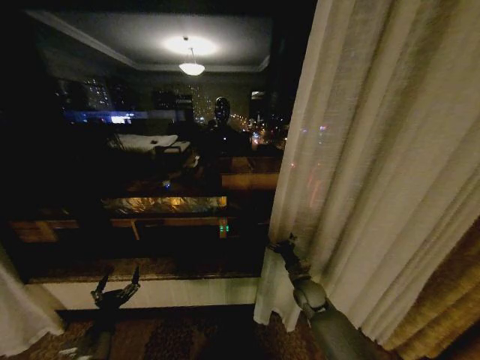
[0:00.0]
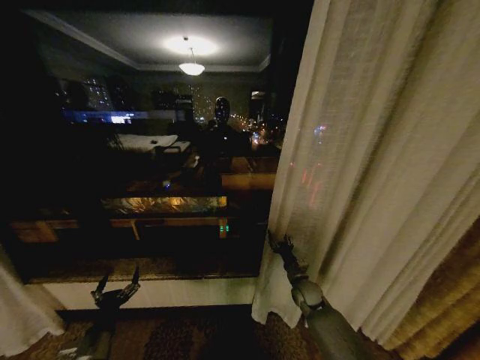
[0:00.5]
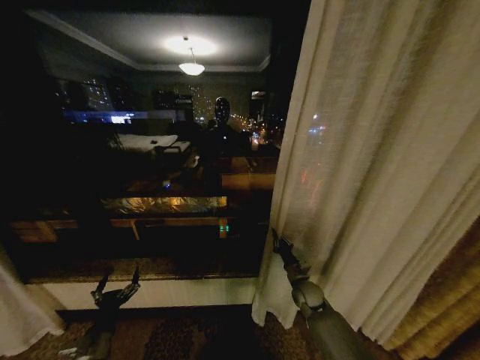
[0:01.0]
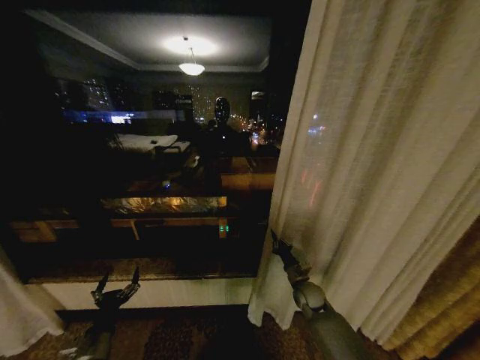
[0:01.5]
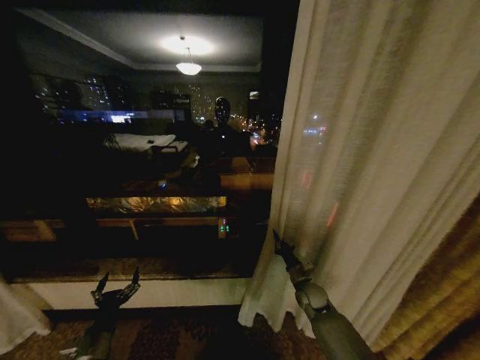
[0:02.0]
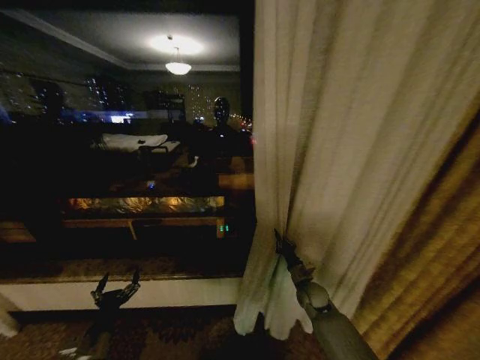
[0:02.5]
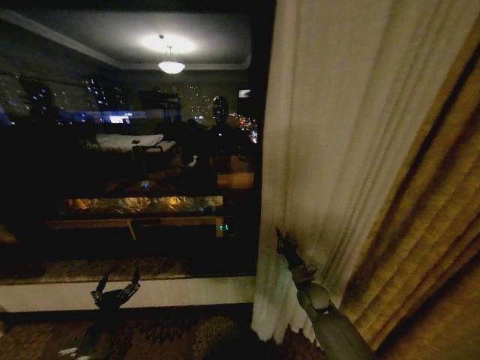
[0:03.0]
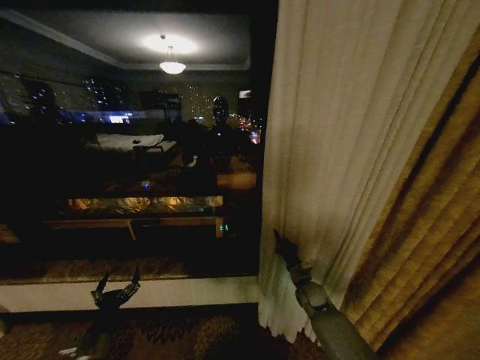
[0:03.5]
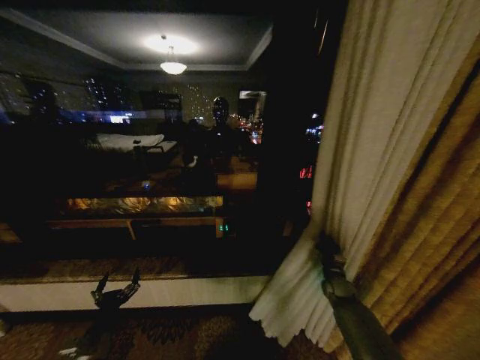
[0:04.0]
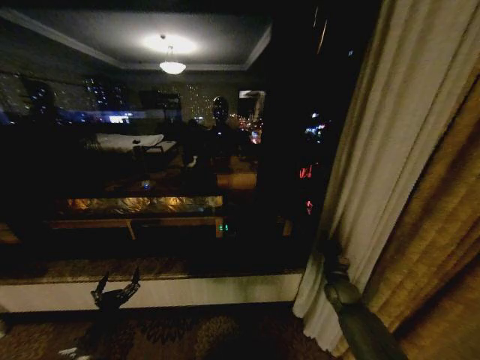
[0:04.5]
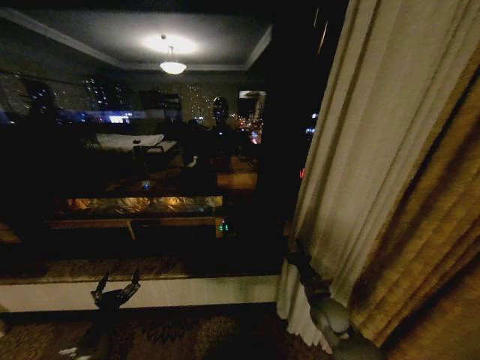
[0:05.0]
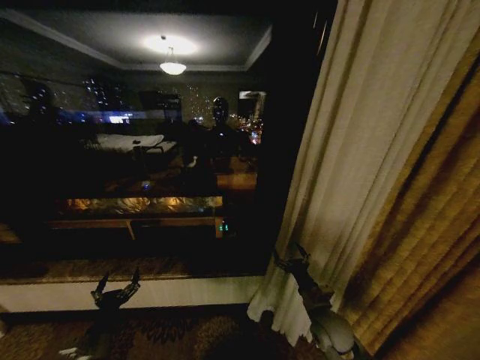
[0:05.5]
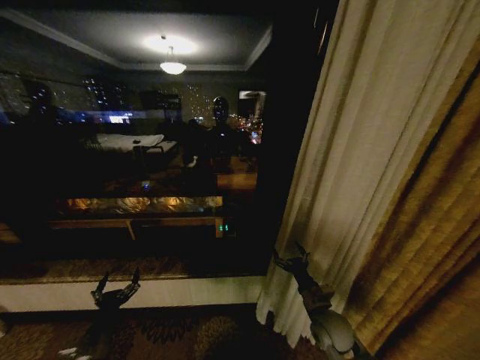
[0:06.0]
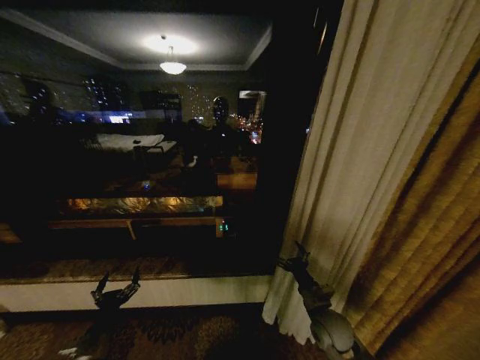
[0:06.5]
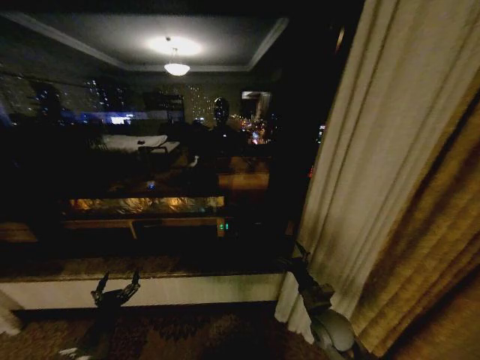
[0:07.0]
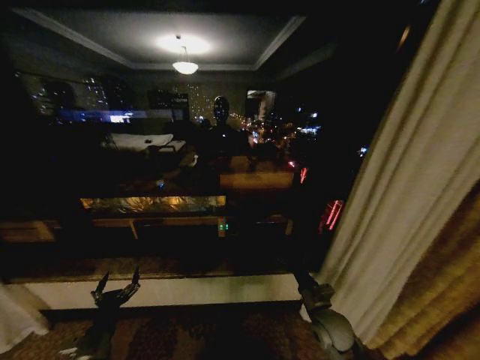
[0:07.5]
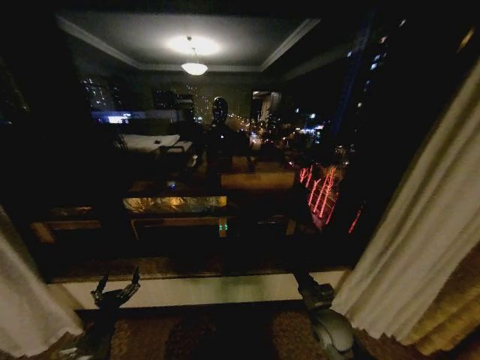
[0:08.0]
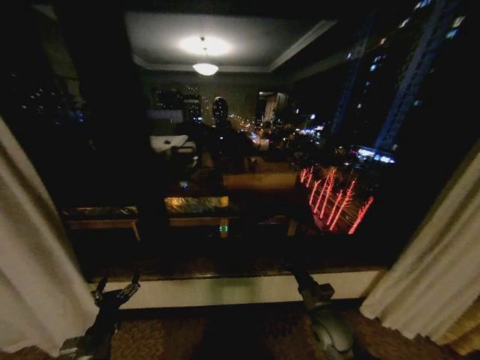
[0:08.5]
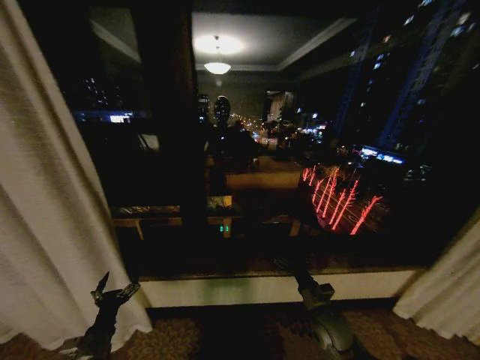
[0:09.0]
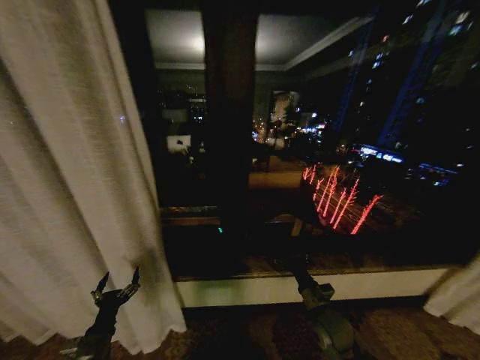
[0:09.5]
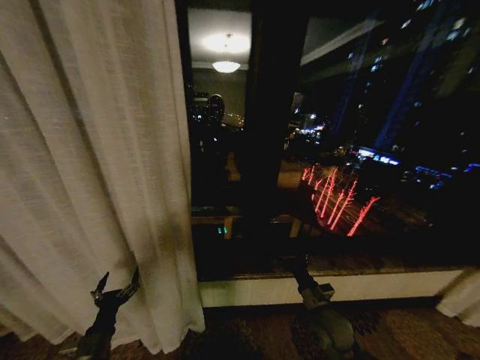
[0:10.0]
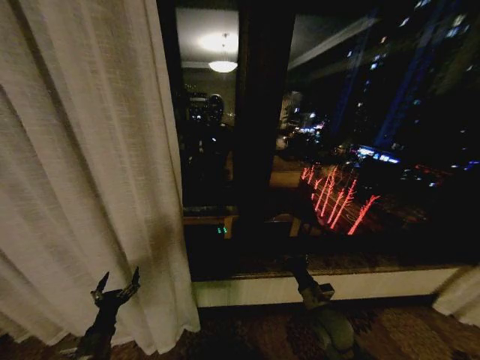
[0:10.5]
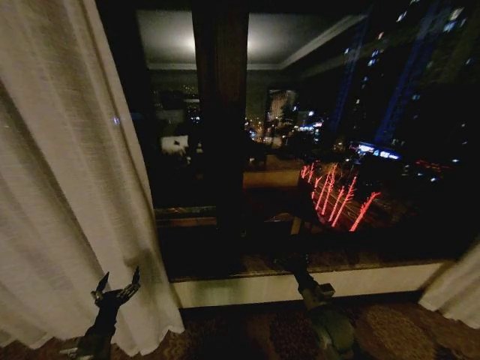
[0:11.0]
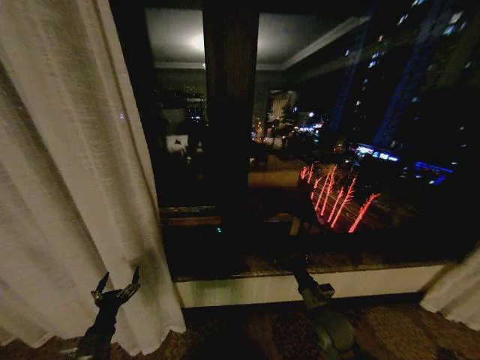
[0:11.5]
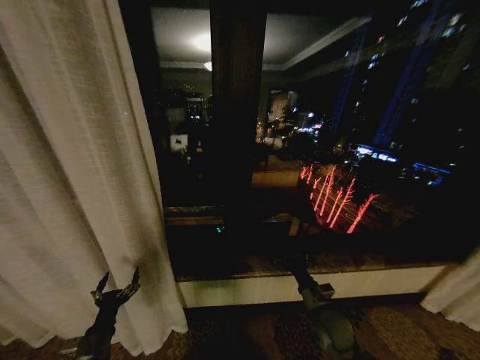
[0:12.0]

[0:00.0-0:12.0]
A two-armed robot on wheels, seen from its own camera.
Task of the whole recording: Open the curtains by pulling them apart, changing their state from closed to fully open.
0:00.0 to 0:02.0: The right gripper closes up.
0:02.0 to 0:04.0: The right gripper travels to the right by some 10 cm.
0:04.0 to 0:06.0: The right gripper shifts about 20 cm backward, to the left and upward, and opens its fingers.

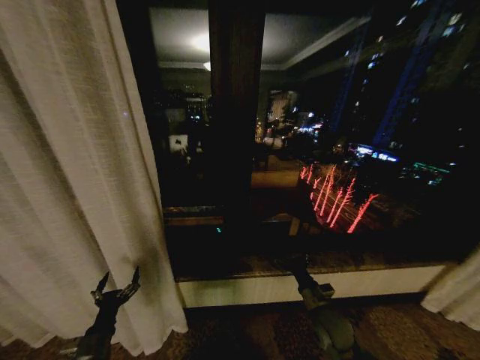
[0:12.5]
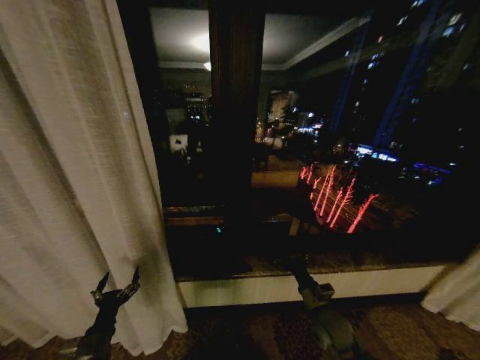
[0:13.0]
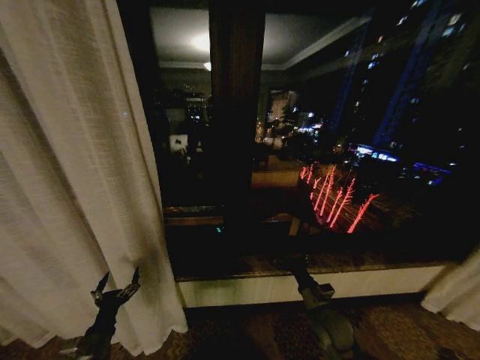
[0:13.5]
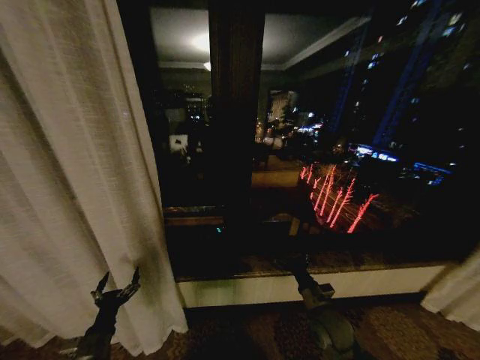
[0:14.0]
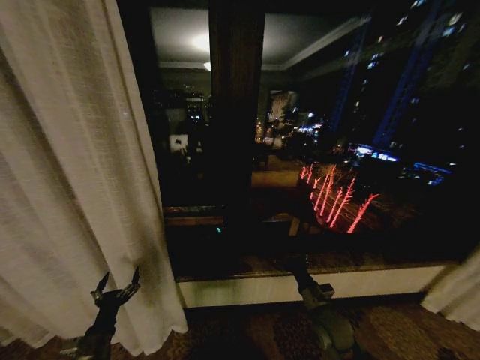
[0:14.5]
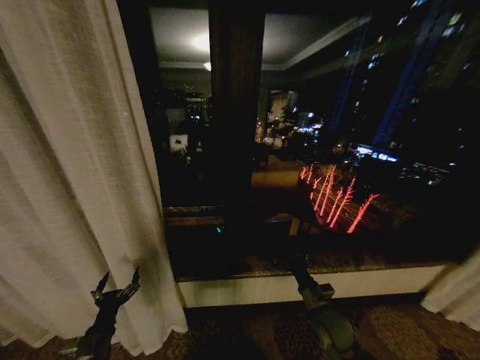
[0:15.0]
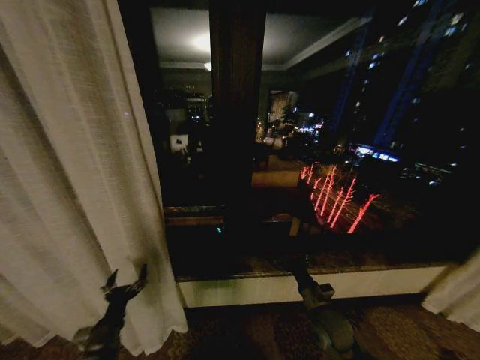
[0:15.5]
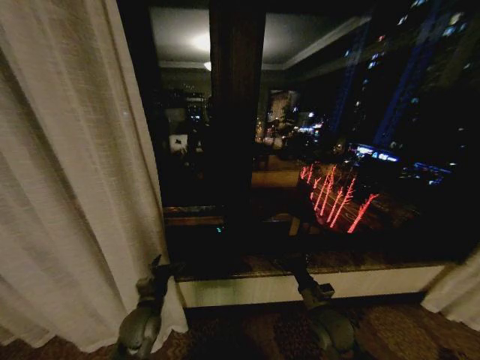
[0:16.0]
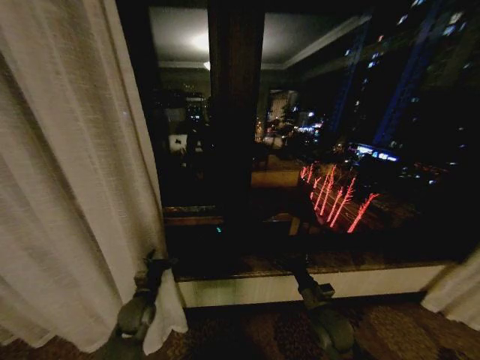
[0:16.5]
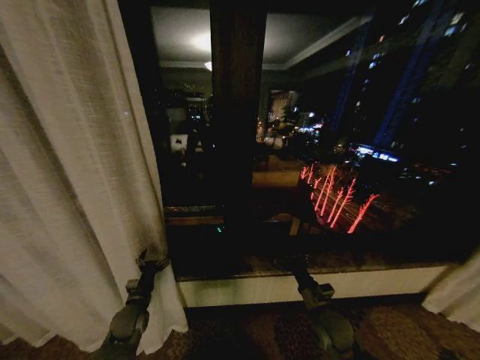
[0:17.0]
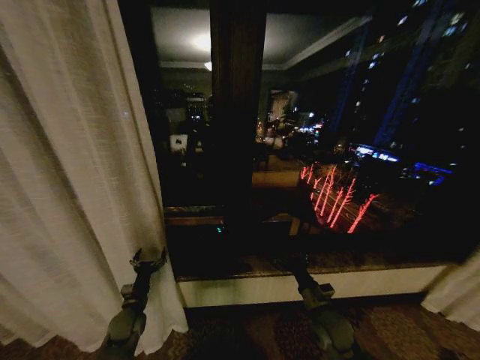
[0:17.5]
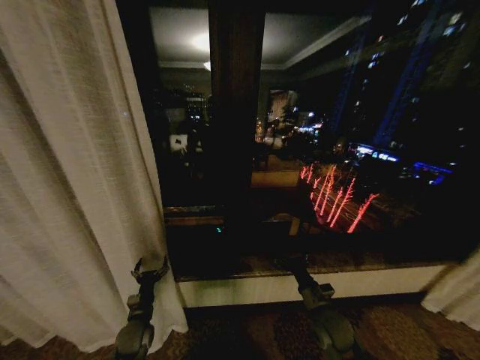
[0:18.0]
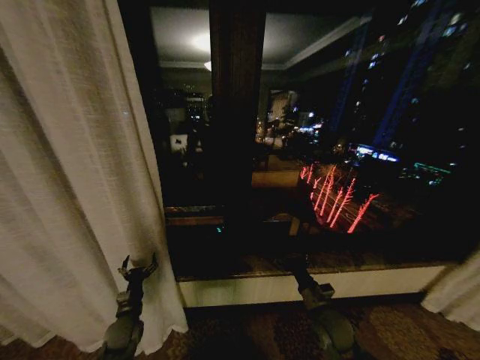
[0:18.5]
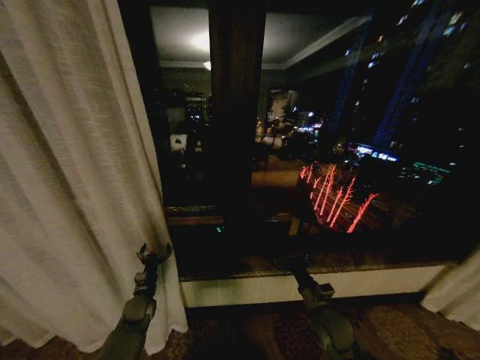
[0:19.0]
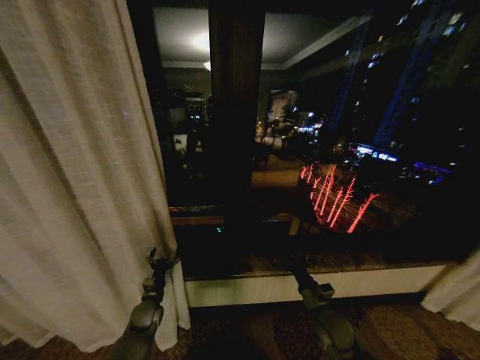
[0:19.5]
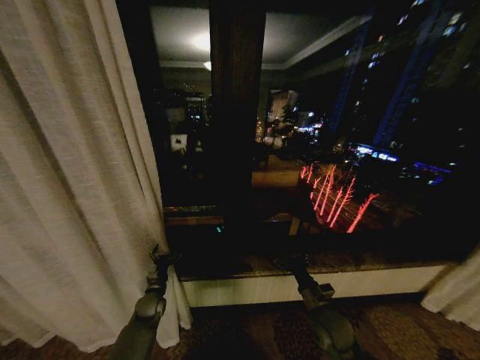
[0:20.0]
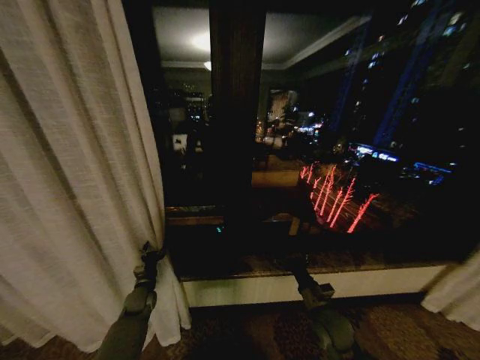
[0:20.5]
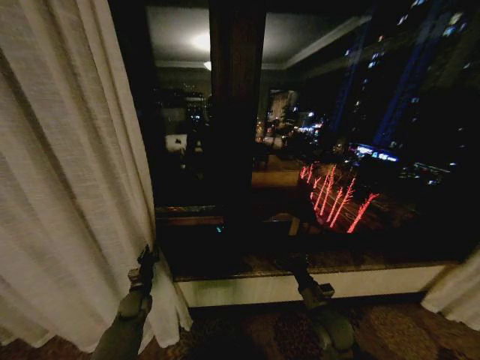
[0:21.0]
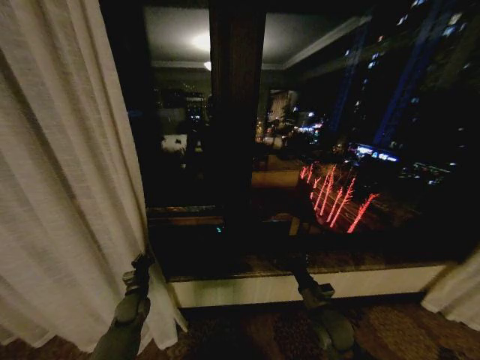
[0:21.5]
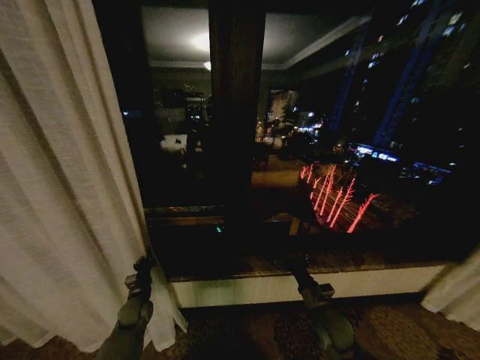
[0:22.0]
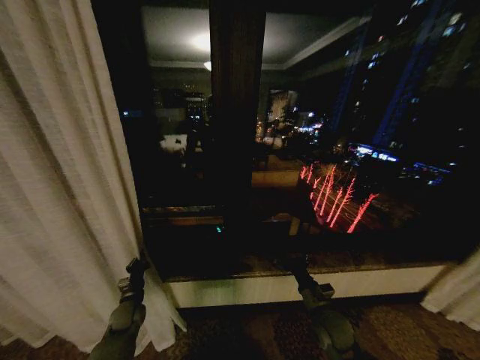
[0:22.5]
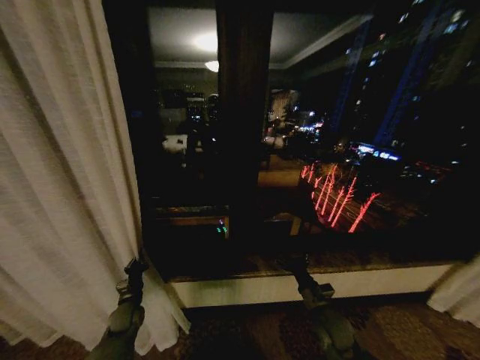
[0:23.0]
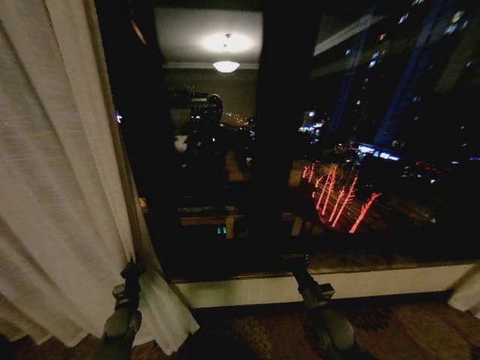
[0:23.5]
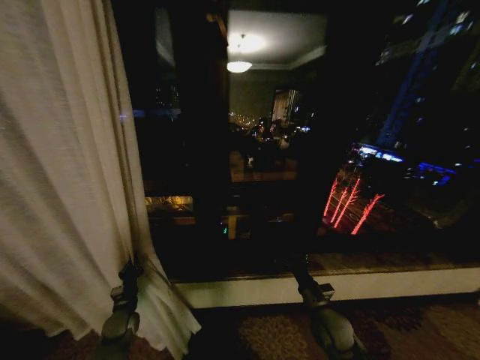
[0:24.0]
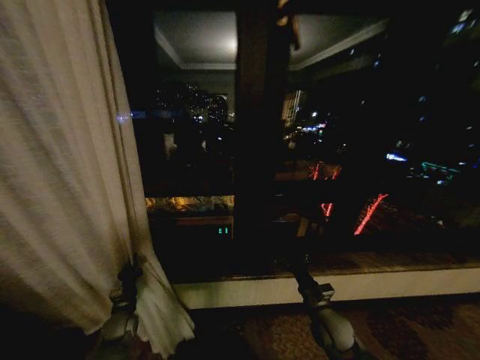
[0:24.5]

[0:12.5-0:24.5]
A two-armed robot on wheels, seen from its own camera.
Task of the whole recording: Open the curtains by pulling them apart, changing their state from closed to fully open.
0:12.5 to 0:14.5: Neither gripper changes place.
0:14.5 to 0:16.5: The left gripper is displaced forward by about 15 cm.
0:16.5 to 0:18.5: The left gripper ends up roughly 5 cm from where it was.
0:18.5 to 0:20.5: The left gripper moves forward, approximately 10 cm.
0:20.5 to 0:22.5: The left gripper changes place by roughly 5 cm, and closes up.

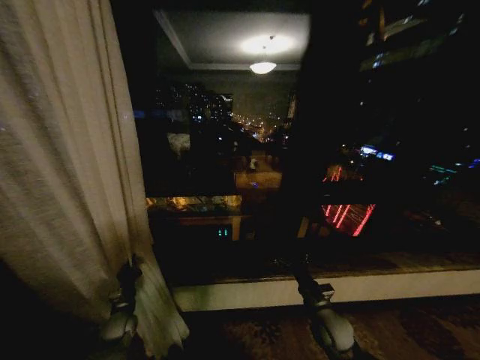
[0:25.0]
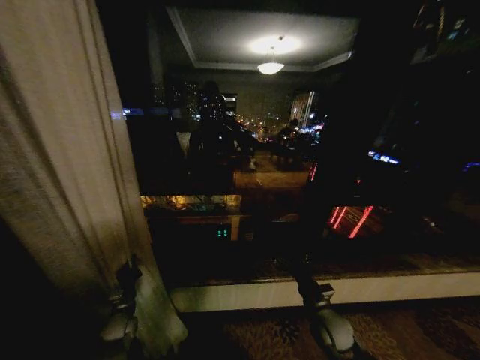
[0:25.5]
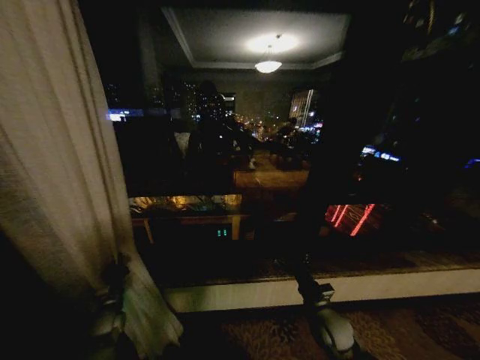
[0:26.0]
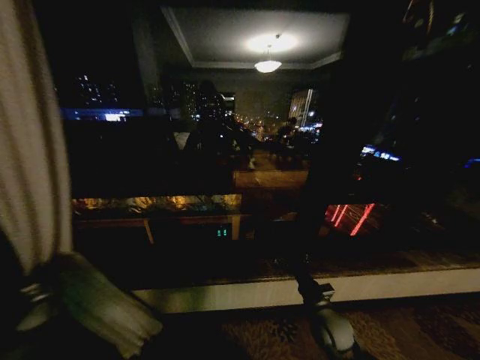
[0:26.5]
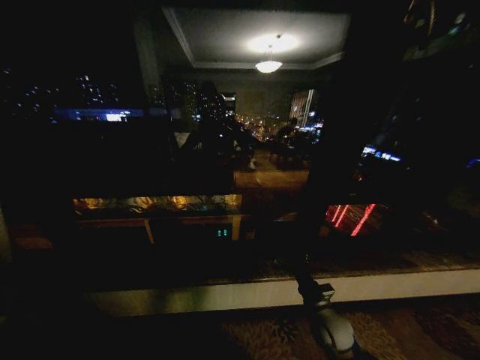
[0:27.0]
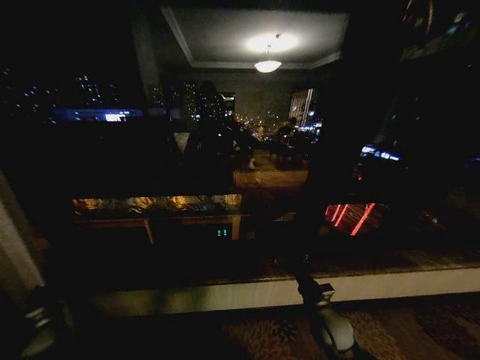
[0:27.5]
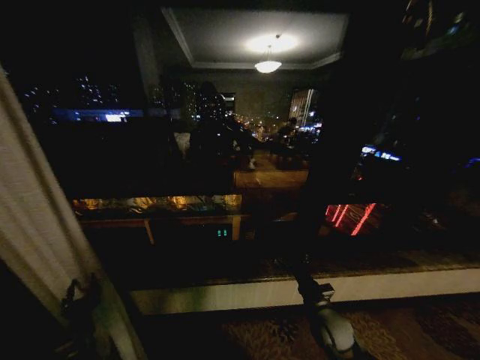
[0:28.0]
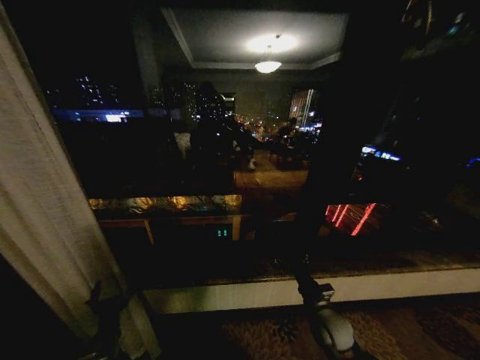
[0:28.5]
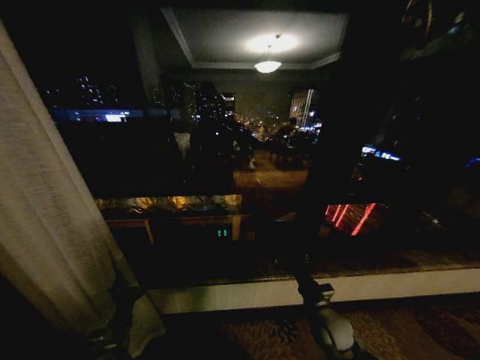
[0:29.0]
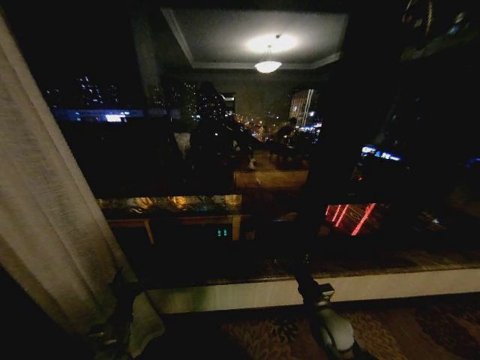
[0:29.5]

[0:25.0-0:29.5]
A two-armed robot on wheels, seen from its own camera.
Task of the whole recording: Open the curtains by pulling them apart, changing their state from closed to fully open.
0:25.0 to 0:27.0: The left gripper travels to the left by approximately 30 cm.
0:27.0 to 0:29.5: The left gripper is displaced to the right by approximately 35 cm, and opens up.
